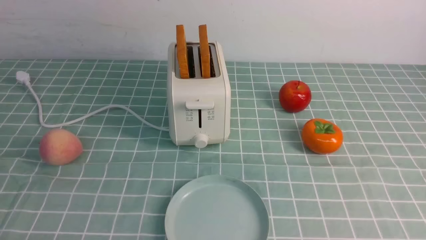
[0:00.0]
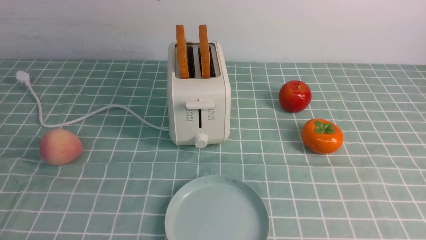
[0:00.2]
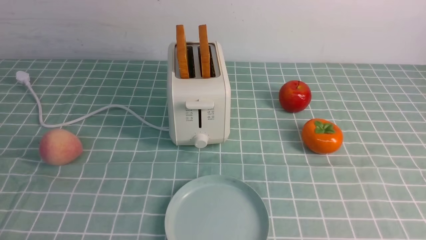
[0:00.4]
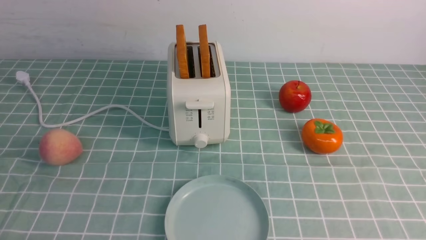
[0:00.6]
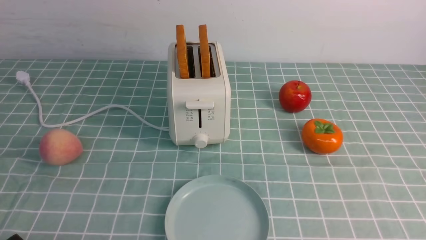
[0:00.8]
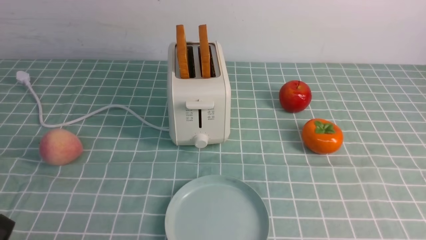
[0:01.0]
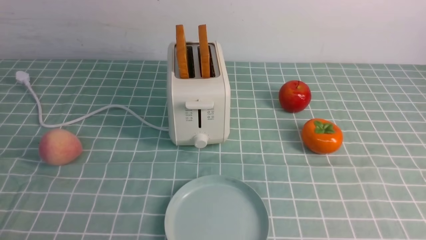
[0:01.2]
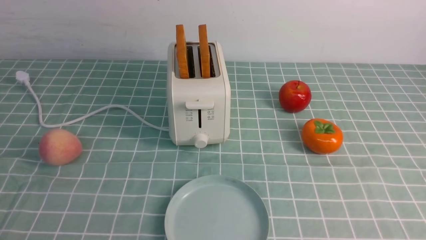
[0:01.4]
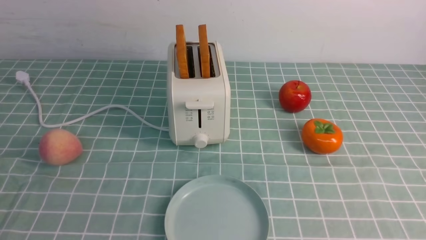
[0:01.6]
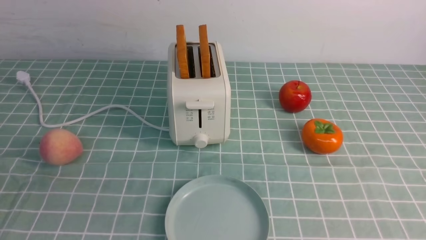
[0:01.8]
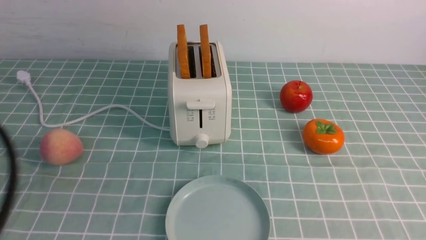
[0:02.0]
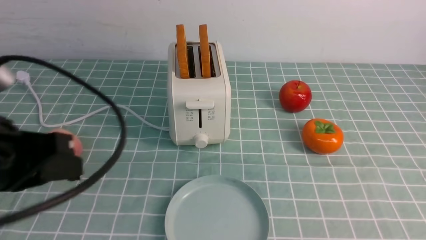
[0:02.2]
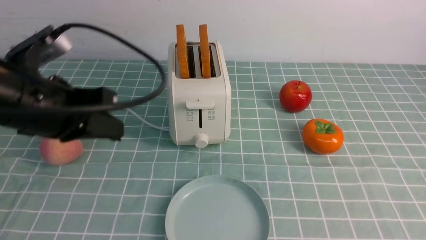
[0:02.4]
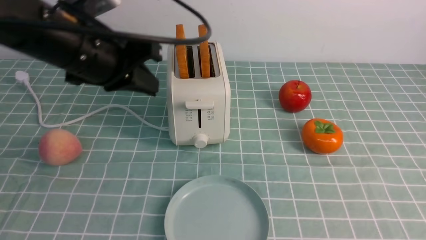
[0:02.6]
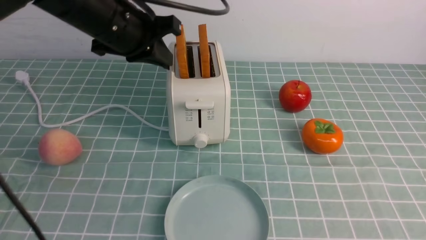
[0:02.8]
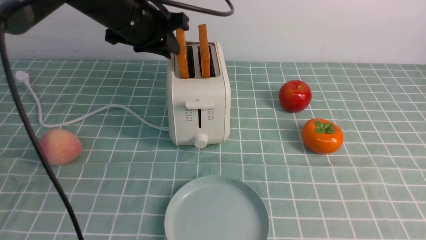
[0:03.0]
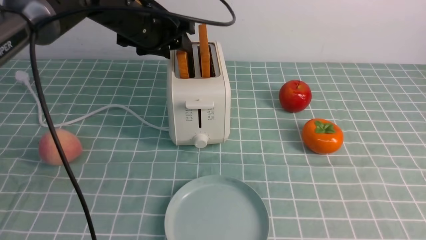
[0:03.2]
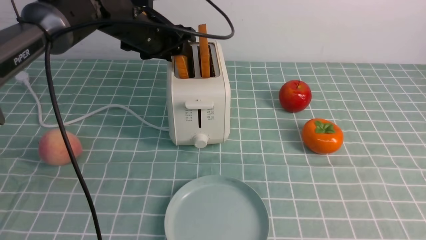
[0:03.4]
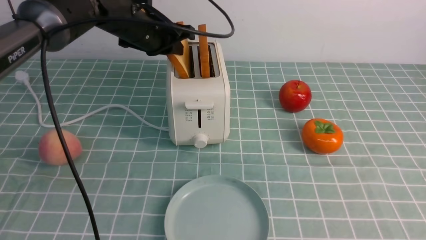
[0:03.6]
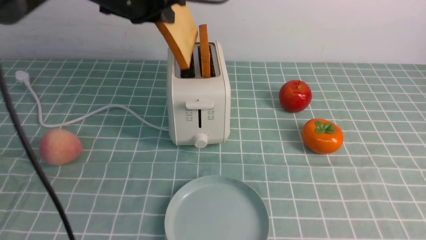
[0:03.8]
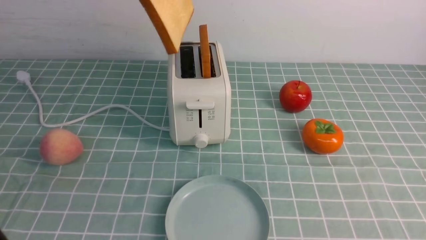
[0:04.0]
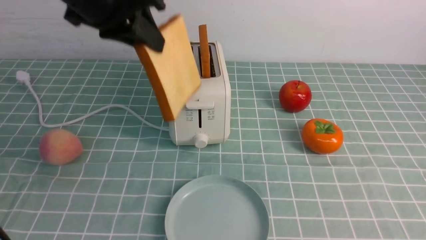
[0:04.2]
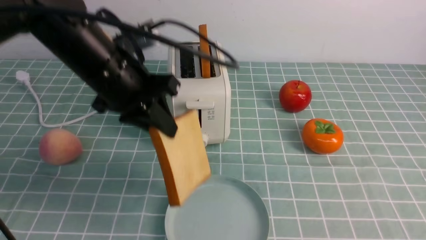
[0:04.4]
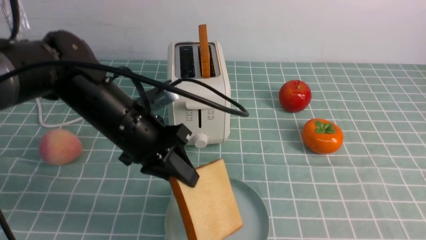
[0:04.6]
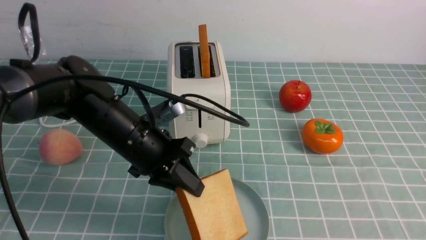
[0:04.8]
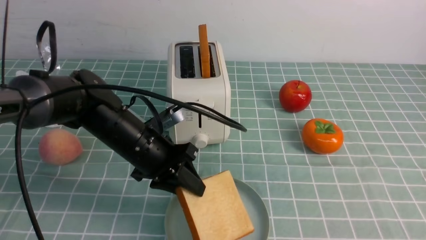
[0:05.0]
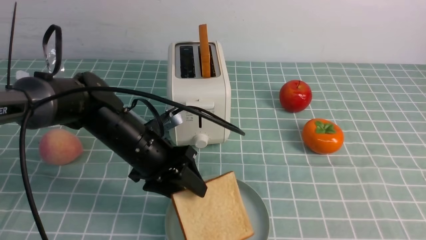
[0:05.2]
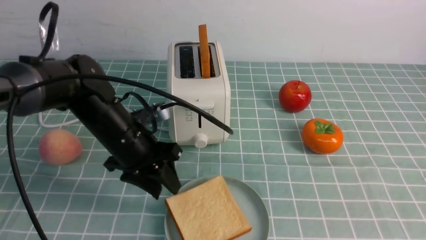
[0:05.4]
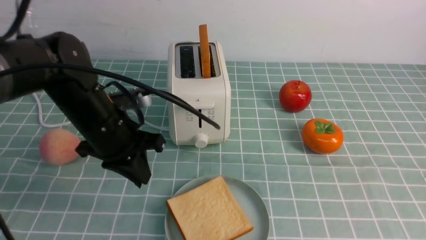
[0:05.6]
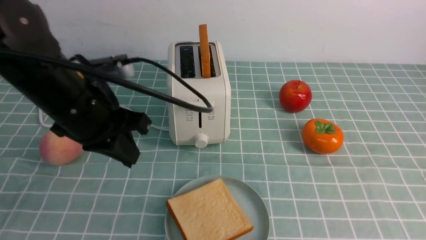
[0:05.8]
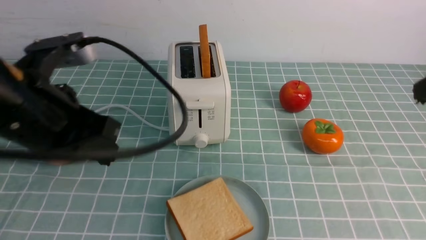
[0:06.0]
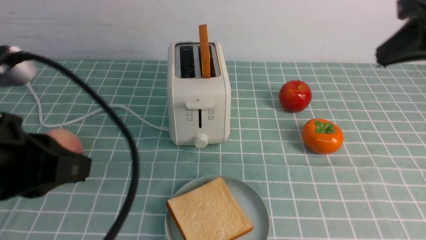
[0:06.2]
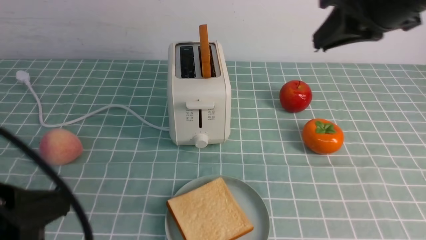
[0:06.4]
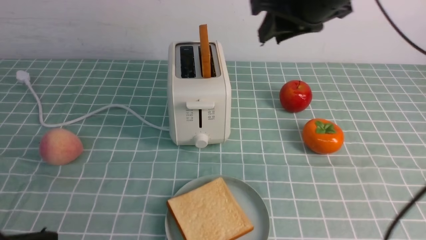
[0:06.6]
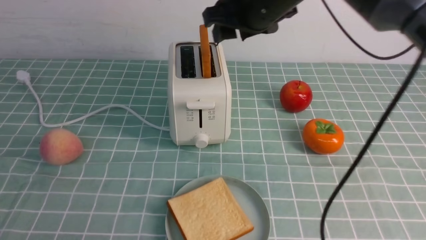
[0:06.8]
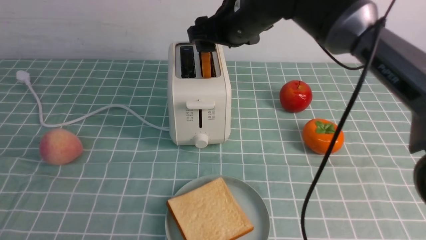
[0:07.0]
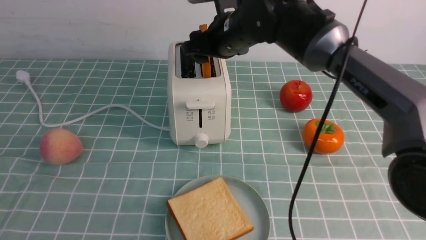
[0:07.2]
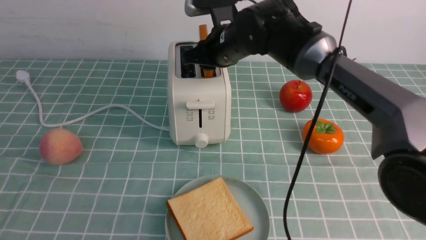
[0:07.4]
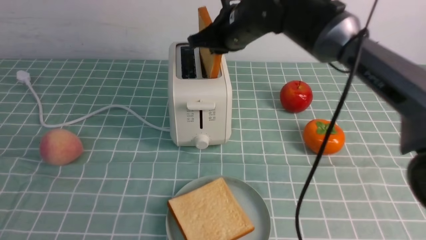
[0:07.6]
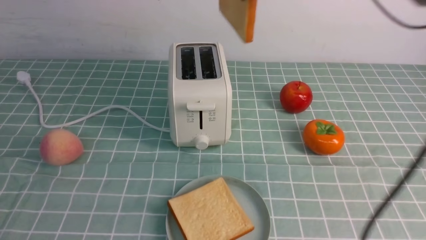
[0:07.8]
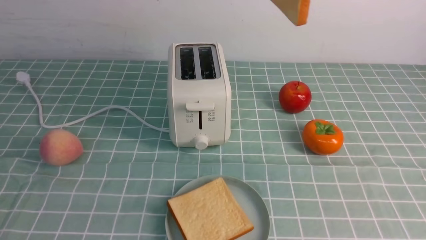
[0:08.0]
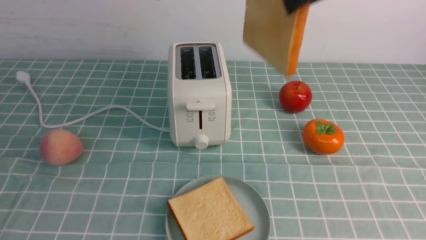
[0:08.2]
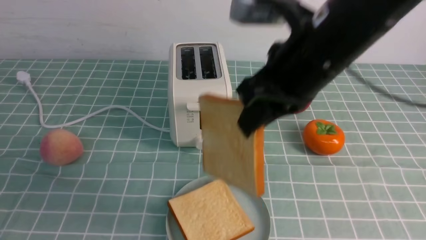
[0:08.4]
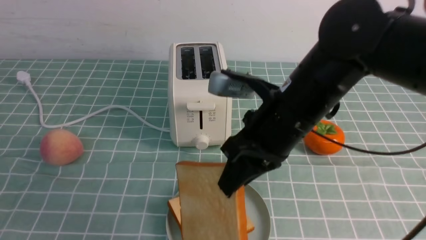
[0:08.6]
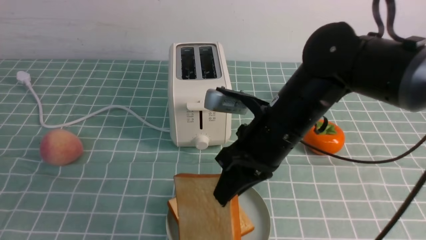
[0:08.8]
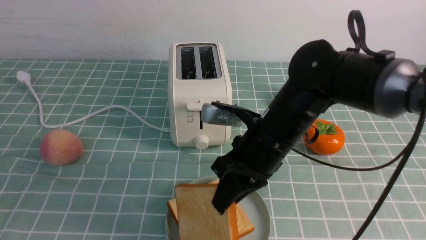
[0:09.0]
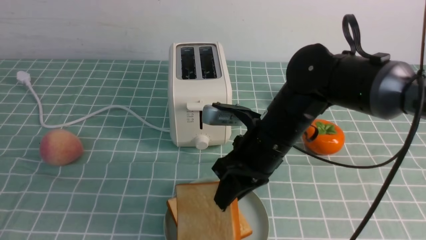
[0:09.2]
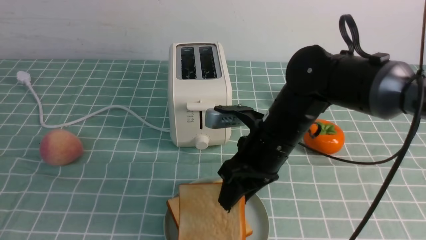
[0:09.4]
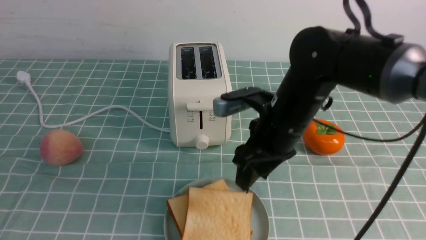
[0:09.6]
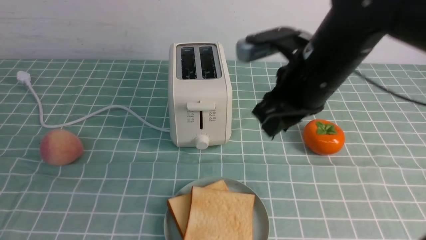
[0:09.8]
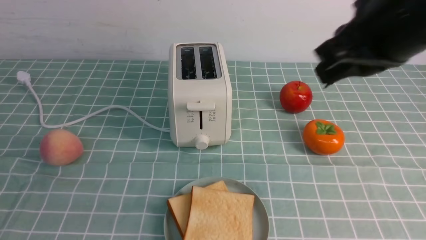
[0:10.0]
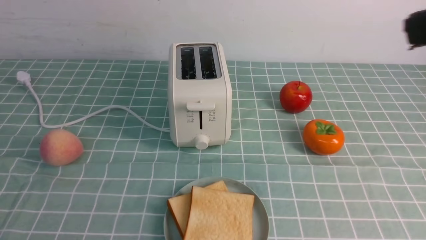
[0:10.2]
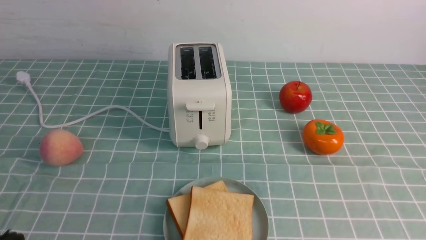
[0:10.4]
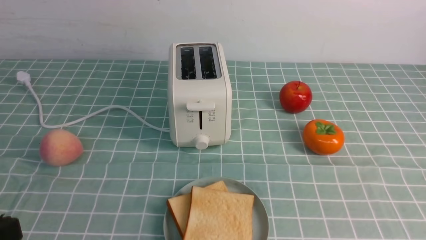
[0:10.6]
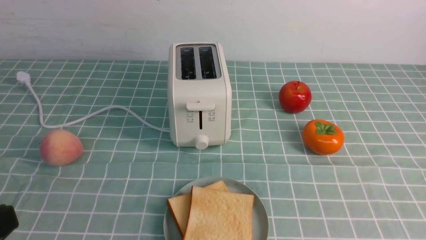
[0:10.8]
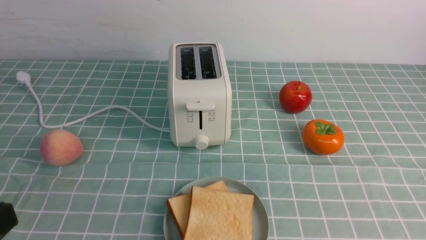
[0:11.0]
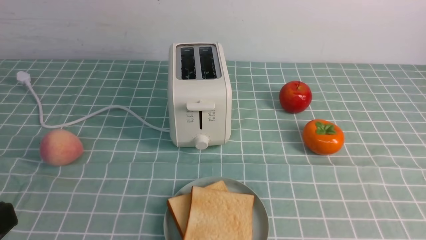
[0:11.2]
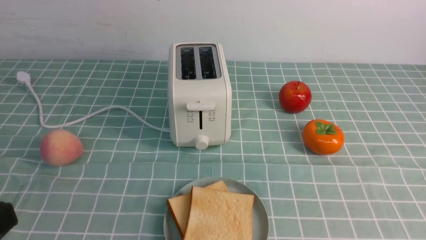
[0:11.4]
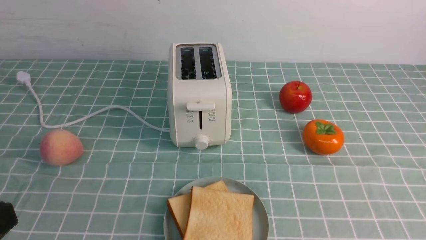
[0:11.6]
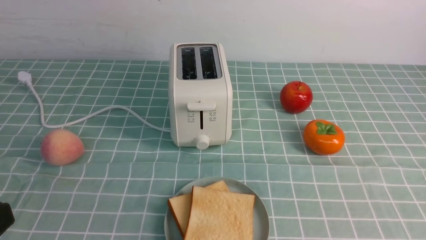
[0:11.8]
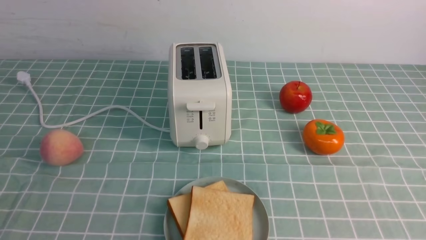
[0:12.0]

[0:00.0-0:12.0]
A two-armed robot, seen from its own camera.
Task of the whole recording: take toasted bread from bread machine on blue coffee table place on plate.
Step, 0.0 to 3.8 s: use the left arm to take out a slice of bread.
Step, 4.0 to 5.4 s: use the left arm to put a slice of bread into the empty plate.
Step, 5.6 to 7.8 s: use the right arm to take out a slice of bread.
Step, 8.0 to 10.0 s: use the right arm to put a slice of bread into the plate.
1.6 to 3.0 s: The left gripper is displaced forward by about 40 cm, and opens; the right gripper shifts about 5 cm upward, and closes up.
3.0 to 4.4 s: The left gripper travels backward by about 10 cm, and closes its fingers.
4.4 to 6.0 s: The right gripper is displaced forward and upward by some 20 cm, while the left gripper heads backward and to the left, covering approximately 15 cm, moves roughly 10 cm downward and comes back, and opens, then closes again.
6.0 to 7.6 s: The right gripper heads to the left and forward, covering roughly 30 cm, and opens and closes again. The left gripper travels backward by approximately 20 cm.
7.6 to 9.0 s: The right gripper travels downward and backward by about 15 cm.
9.0 to 10.4 s: The right gripper goes some 35 cm backward, to the right and upward, and opens and closes again.

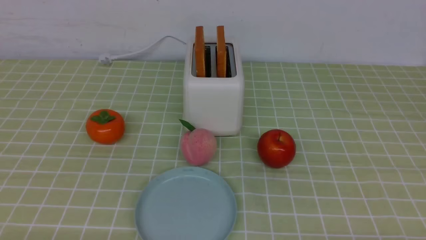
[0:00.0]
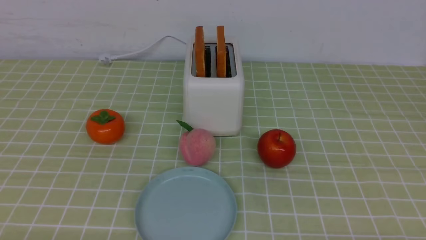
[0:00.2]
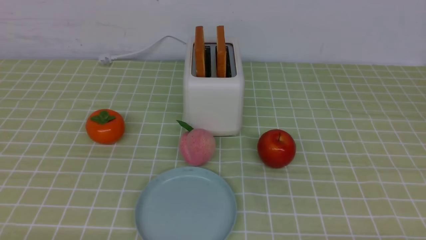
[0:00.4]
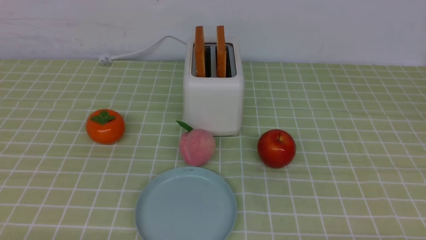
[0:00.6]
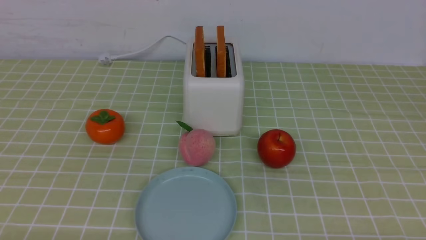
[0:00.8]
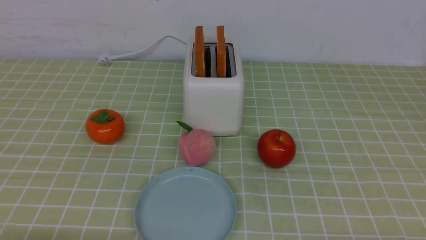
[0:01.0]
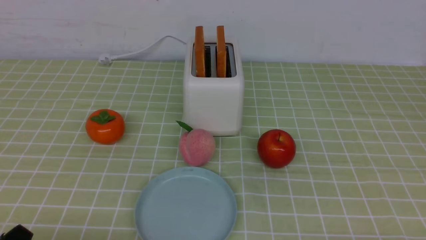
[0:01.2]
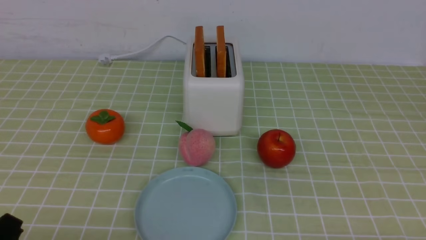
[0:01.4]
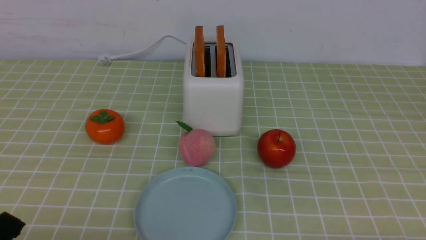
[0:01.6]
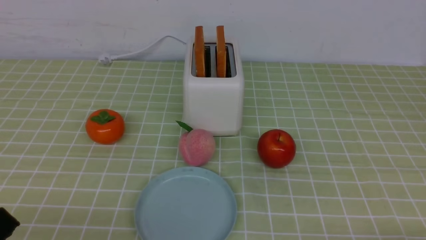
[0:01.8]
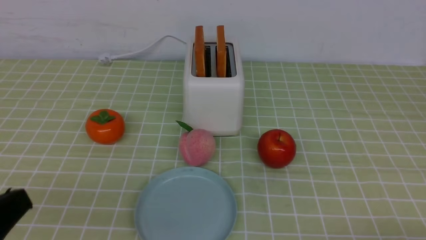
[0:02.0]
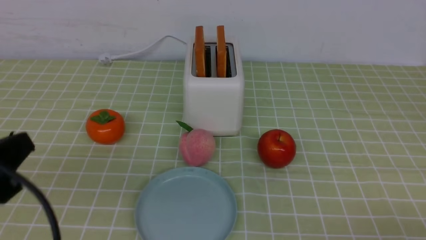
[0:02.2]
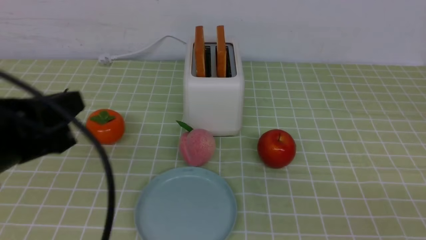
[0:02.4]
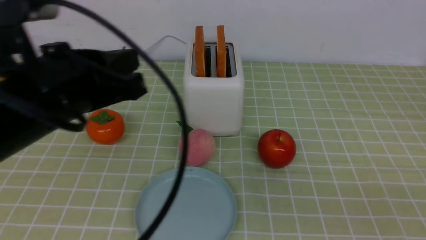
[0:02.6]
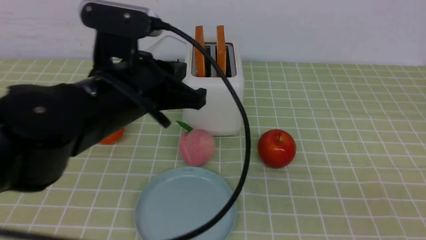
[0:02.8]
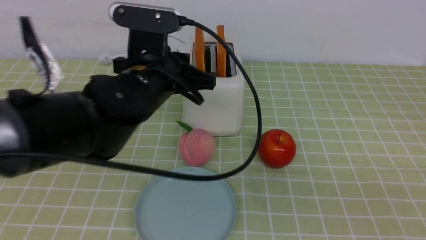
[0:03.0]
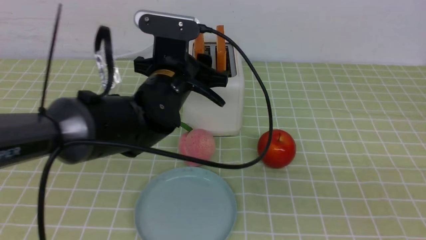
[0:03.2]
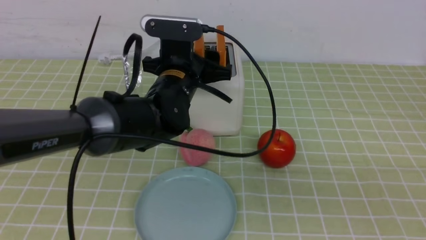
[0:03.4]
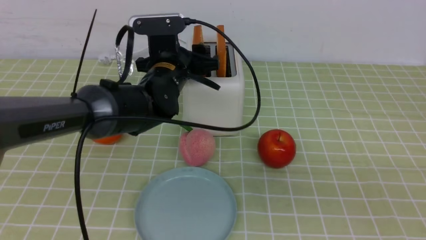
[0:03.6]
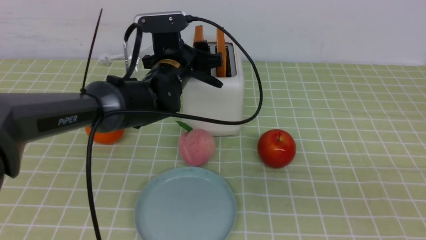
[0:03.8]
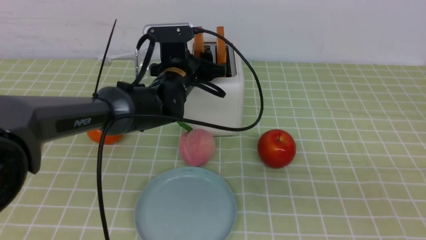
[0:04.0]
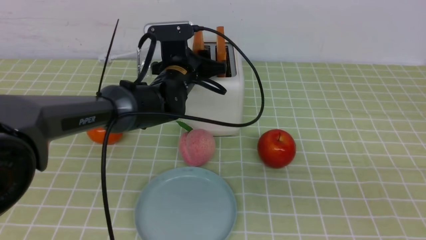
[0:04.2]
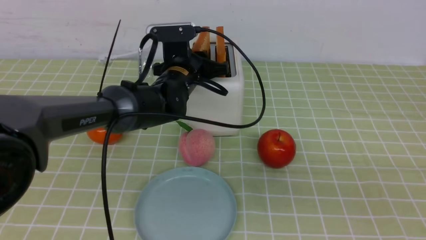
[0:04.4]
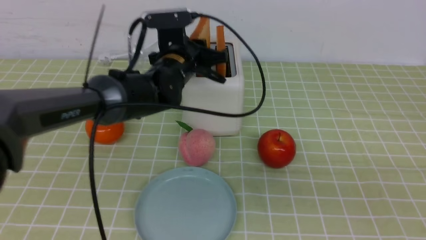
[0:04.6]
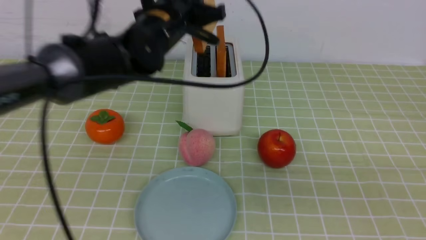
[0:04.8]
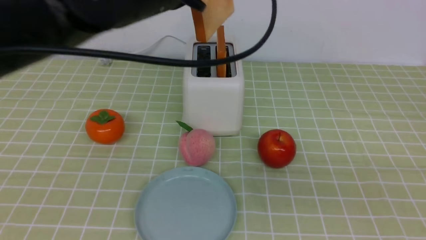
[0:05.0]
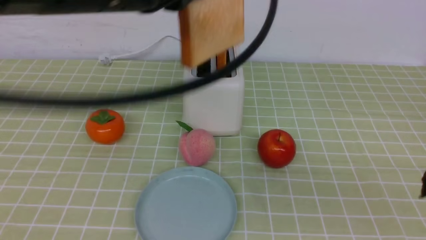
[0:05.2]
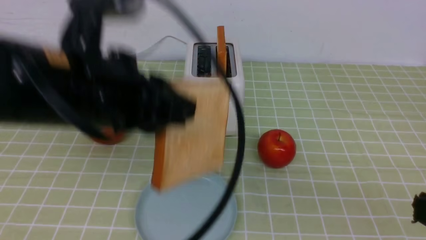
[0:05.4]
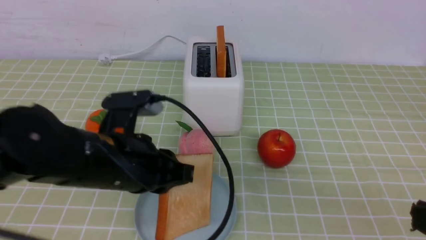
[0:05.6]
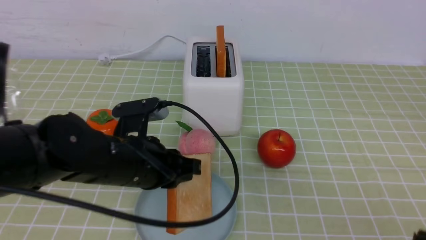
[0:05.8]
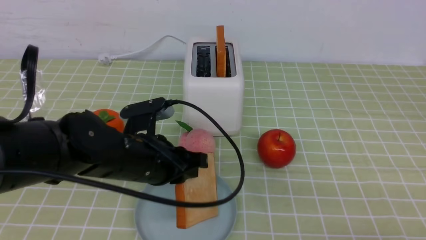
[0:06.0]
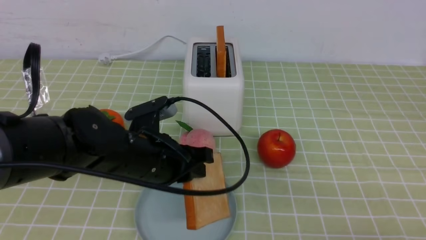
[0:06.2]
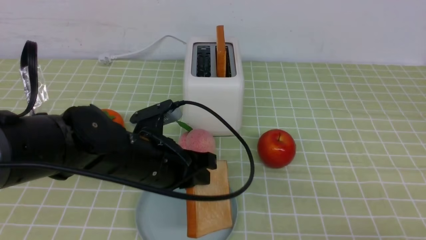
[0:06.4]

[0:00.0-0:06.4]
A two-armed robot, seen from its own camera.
Task of the whole recording: take toasted bread from bread machine on green coffee tablecloth place on plate.
Step, 0.0 to 4.8 s: use the left arm to take out a slice of bread.
1.6 to 3.2 s: The right gripper is displaced upward by roughly 15 cm, and closes up. The left gripper travels forward and to the right by roughly 35 cm, and opens.
3.2 to 4.8 s: The left gripper moves upward, roughly 5 cm, and closes up.
4.8 to 6.4 s: The right gripper ends up roughly 5 cm from where it was. The left gripper heads downward and backward, covering roughly 20 cm.
